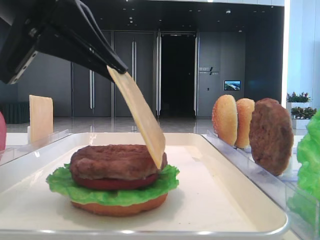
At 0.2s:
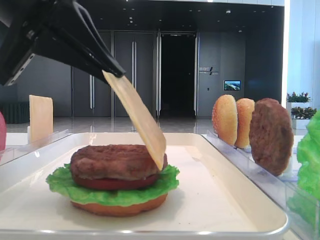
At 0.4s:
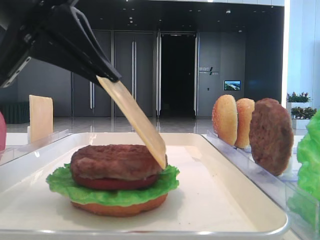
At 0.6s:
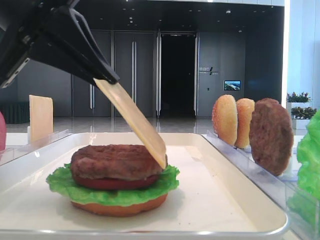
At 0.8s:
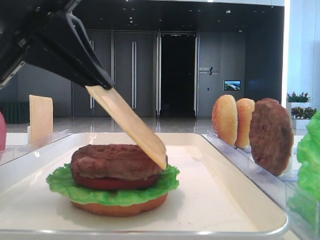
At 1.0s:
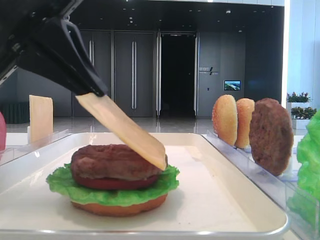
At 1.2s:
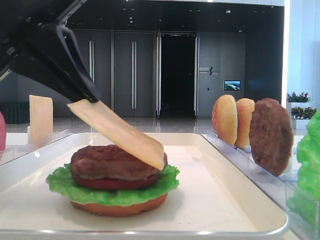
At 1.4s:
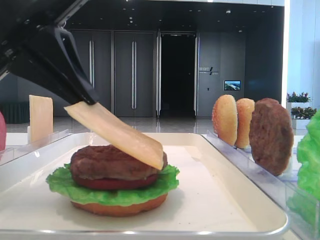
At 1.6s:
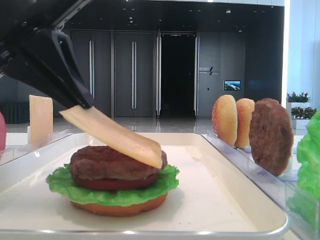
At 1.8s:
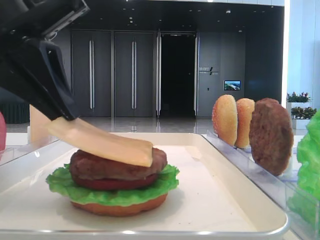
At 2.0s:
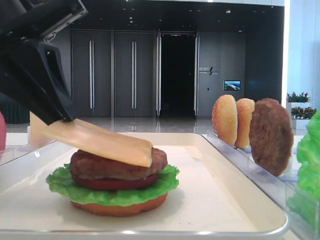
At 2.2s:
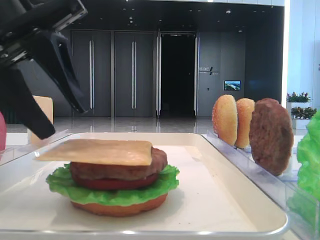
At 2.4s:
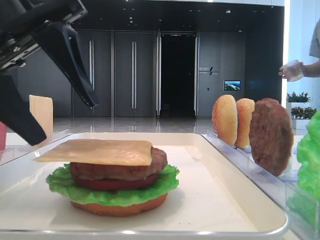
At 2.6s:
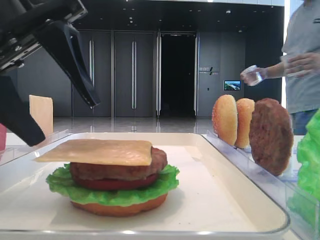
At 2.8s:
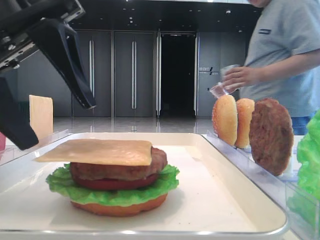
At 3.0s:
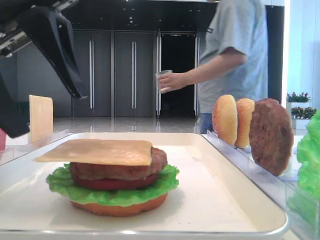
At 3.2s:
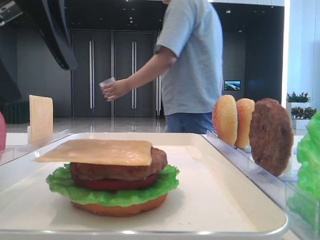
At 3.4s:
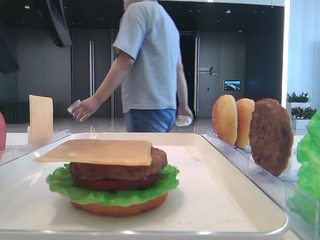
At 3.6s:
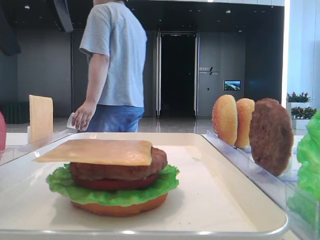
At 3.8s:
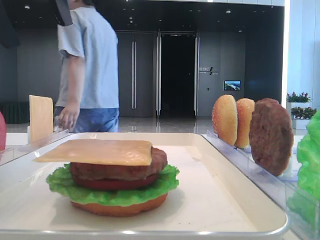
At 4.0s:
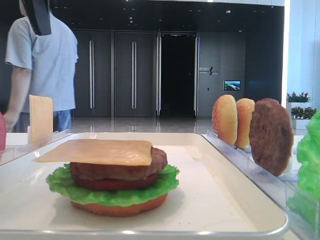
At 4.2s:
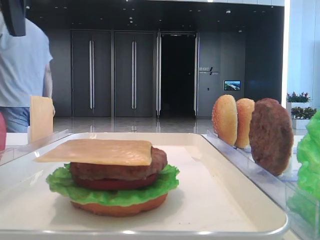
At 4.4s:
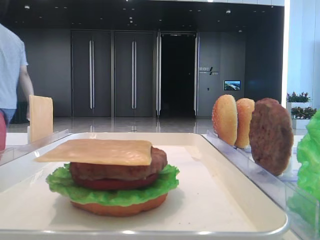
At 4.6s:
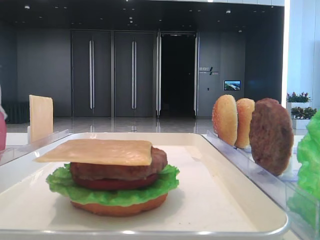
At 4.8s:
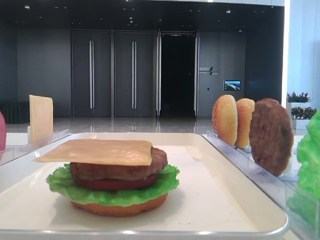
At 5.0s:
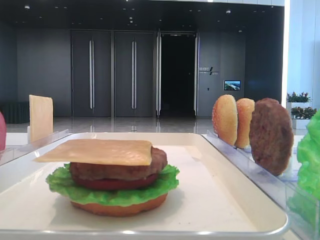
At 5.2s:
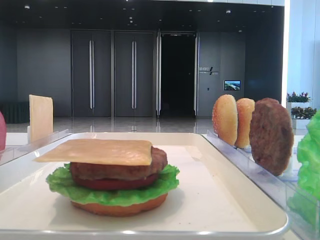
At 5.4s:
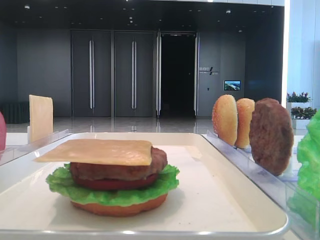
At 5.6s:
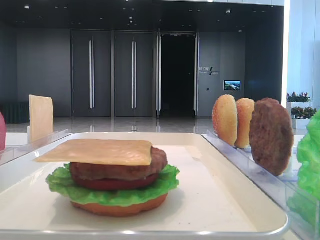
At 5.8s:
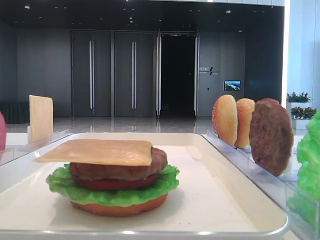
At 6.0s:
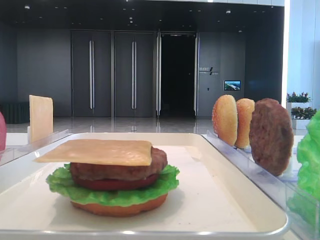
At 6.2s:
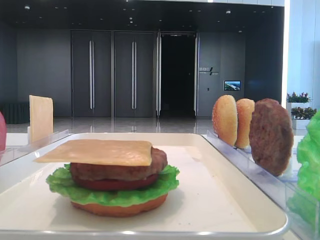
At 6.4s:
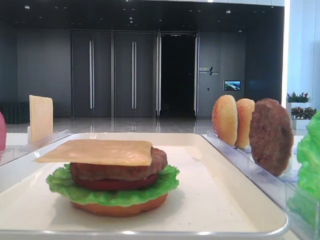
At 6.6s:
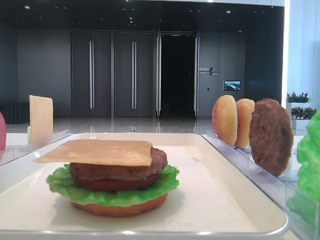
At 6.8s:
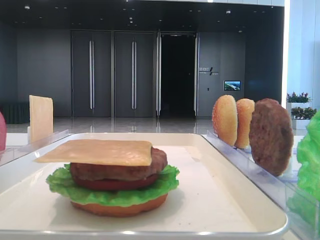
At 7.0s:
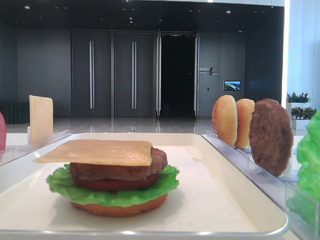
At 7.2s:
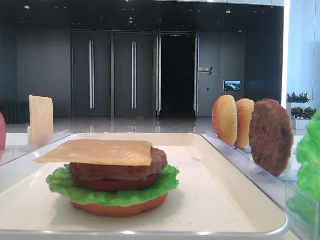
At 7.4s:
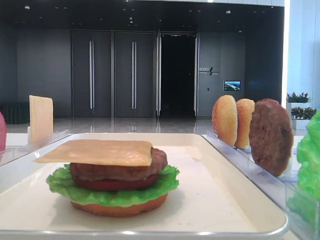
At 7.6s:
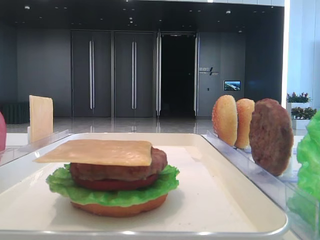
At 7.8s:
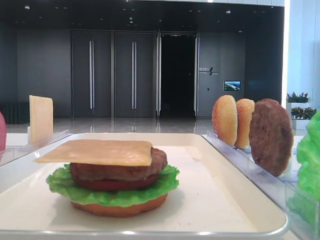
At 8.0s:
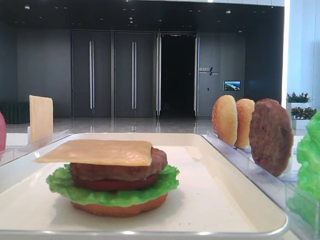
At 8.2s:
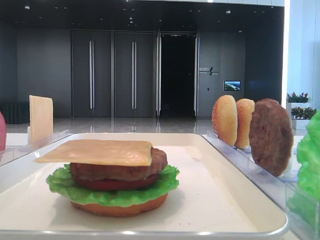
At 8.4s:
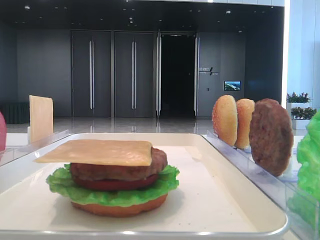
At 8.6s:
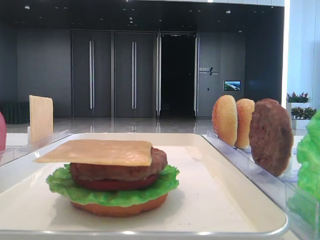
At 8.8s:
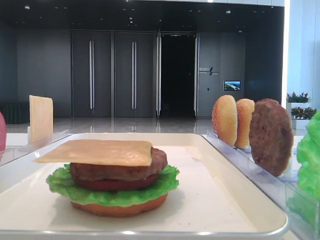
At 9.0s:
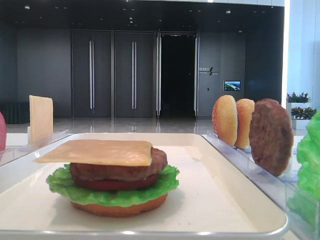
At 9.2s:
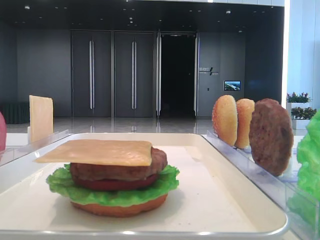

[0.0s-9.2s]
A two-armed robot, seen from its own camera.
Step, 0.0s to 2.0s: Place the cheese slice on the patty with the left hand.
0.0s to 1.6s: The grippers move only a little.
1.6s to 3.0s: The left gripper opens up.
3.0s to 4.6s: The left gripper goes roughly 20 cm to the left and upward.

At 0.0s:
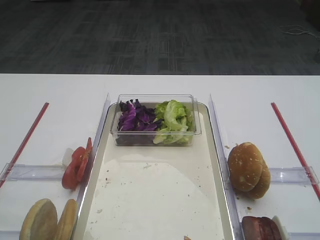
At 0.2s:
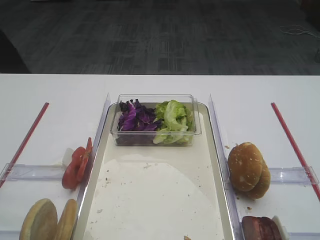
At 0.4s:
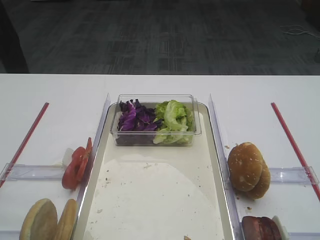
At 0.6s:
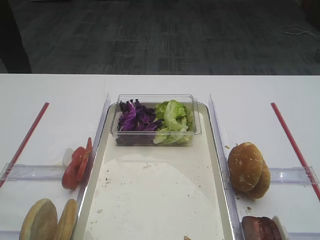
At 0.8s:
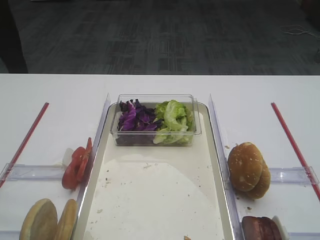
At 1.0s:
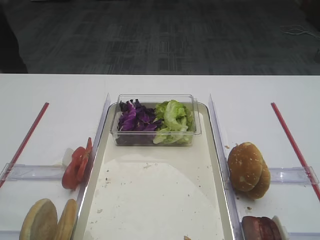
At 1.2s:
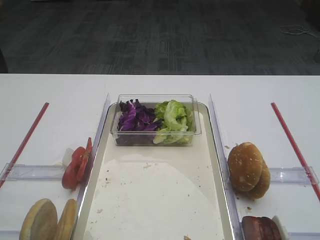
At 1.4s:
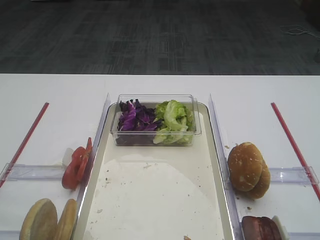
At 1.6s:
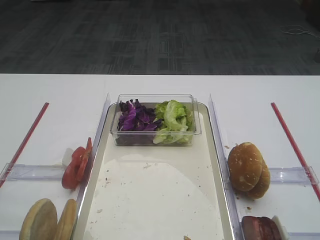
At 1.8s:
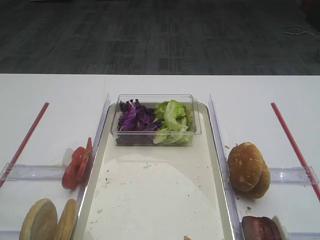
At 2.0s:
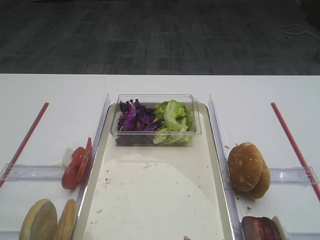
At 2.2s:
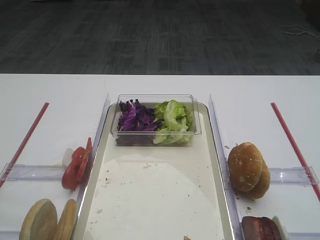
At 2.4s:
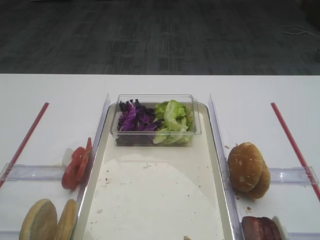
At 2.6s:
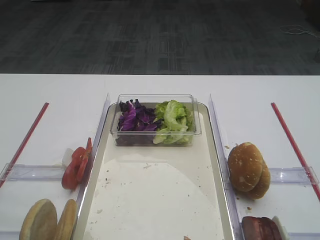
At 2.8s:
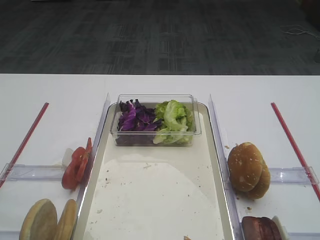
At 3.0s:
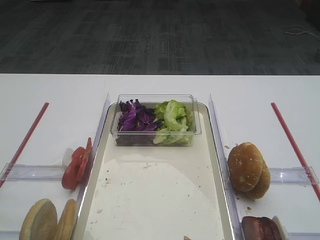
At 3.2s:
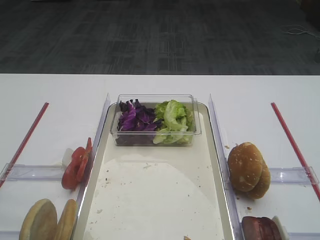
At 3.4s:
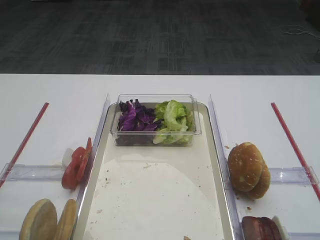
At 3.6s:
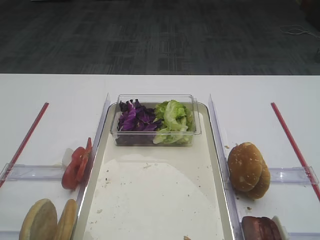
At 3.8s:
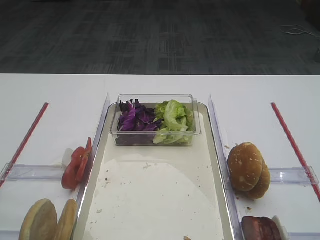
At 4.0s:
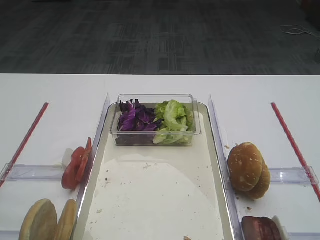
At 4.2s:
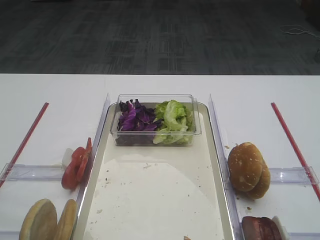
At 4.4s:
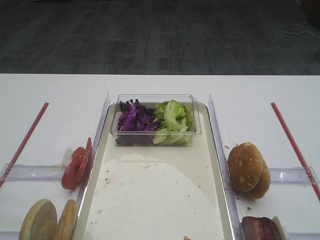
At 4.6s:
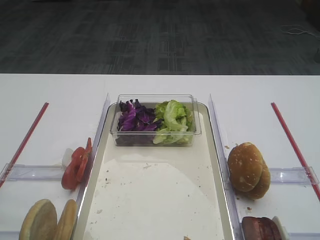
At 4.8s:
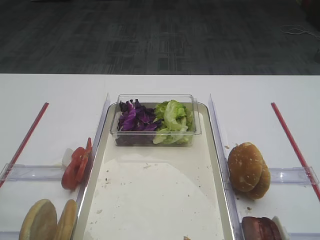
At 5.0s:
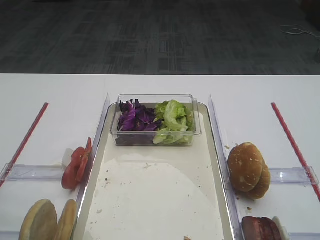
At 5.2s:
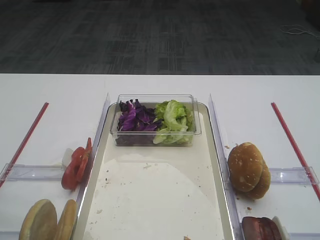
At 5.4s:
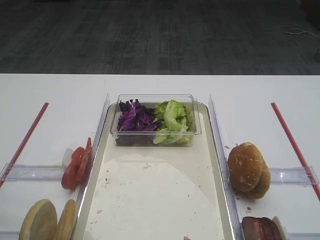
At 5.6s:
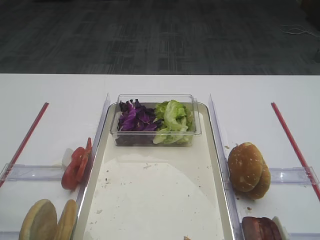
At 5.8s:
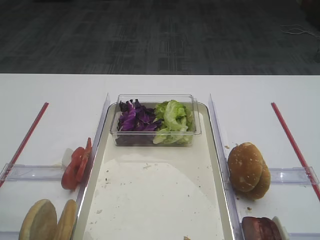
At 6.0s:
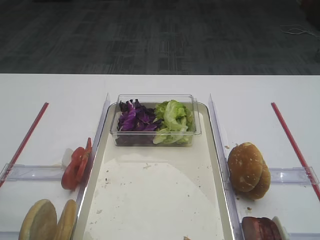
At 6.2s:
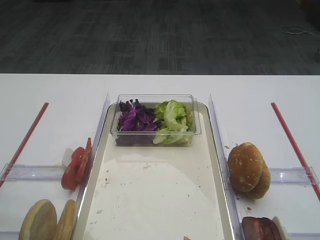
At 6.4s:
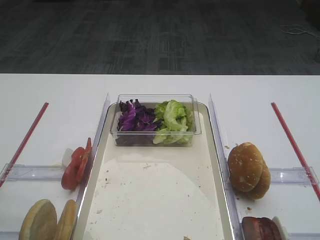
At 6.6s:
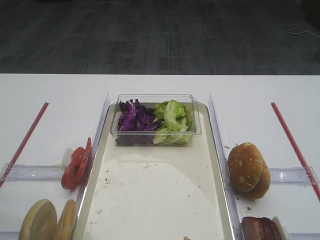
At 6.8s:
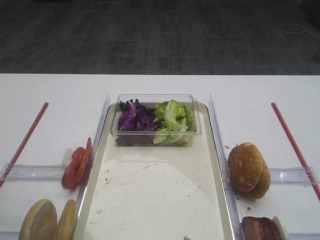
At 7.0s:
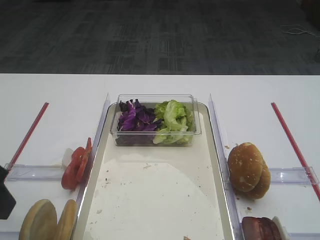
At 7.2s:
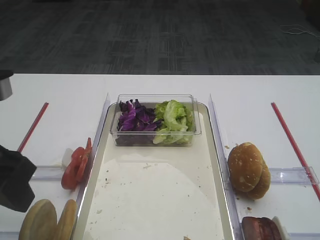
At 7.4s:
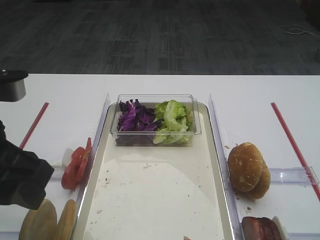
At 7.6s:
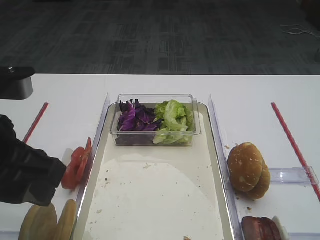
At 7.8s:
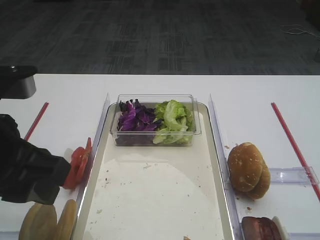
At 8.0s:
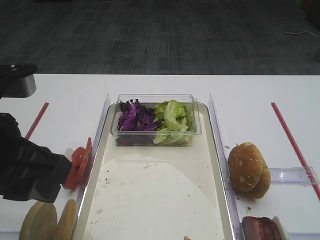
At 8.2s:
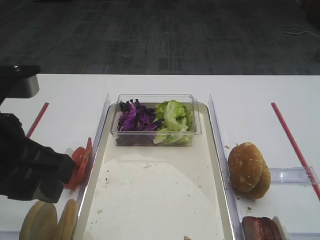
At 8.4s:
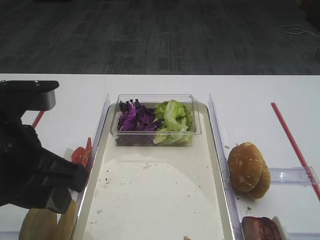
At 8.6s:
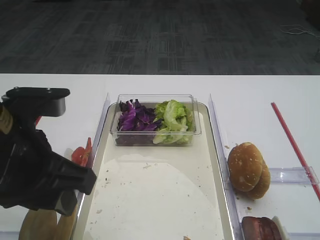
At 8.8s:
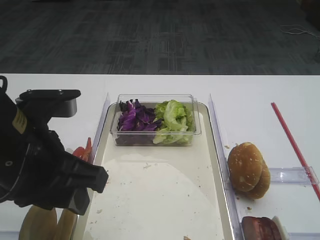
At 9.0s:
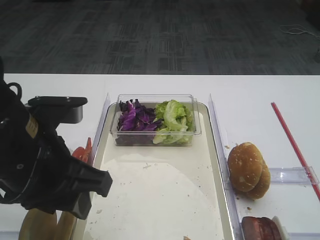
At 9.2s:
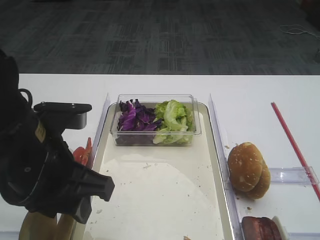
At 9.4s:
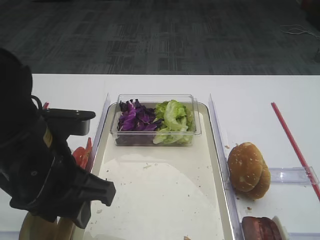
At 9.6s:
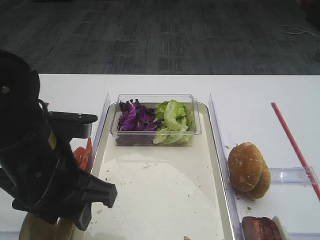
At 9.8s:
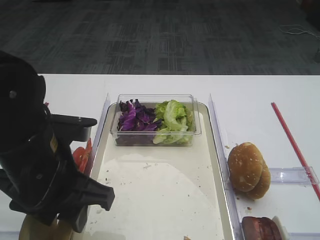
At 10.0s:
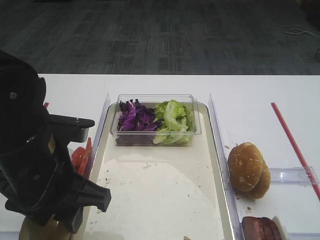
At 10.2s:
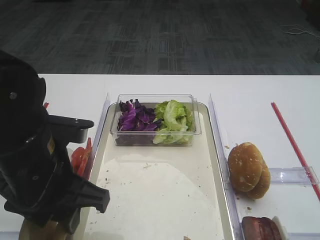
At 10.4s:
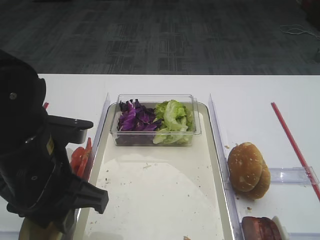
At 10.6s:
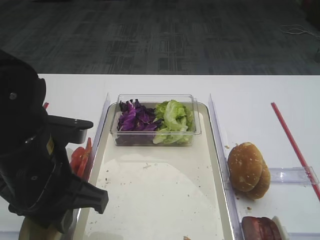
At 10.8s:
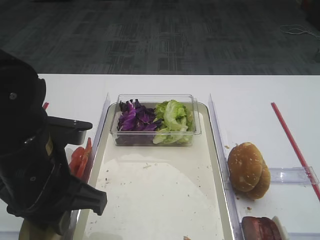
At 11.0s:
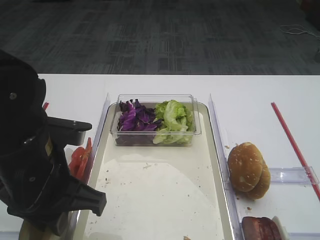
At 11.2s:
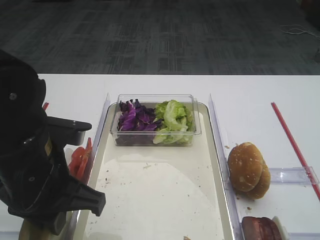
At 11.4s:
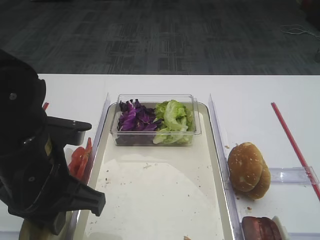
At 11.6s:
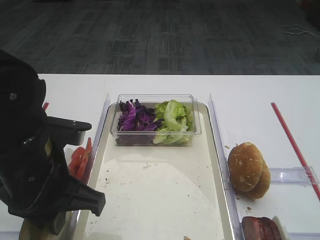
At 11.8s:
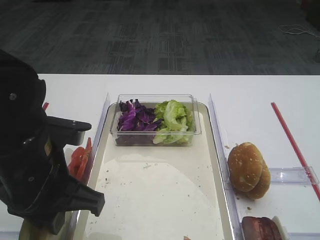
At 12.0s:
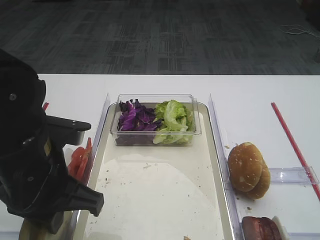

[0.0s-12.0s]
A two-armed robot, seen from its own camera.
1.6s to 3.0s: Neither gripper changes place.
6.0s to 7.6s: The left gripper is displaced to the right by roughly 10 cm.
7.6s to 9.0s: The left gripper changes place by approximately 5 cm.
9.0s to 10.4s: The grippers move only a little.
10.4s to 12.0s: The left gripper closes up.

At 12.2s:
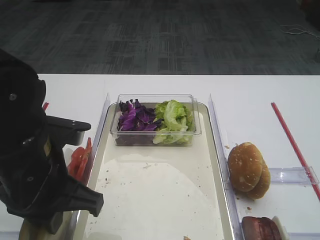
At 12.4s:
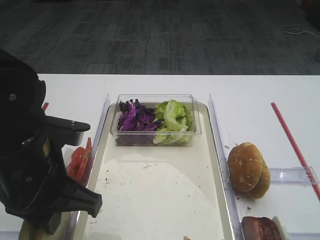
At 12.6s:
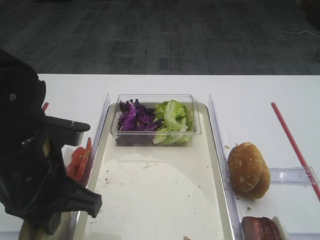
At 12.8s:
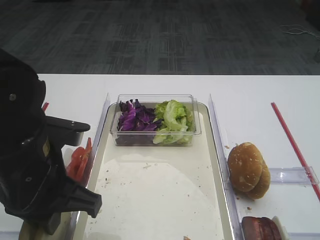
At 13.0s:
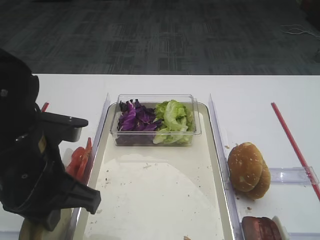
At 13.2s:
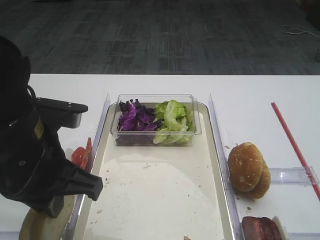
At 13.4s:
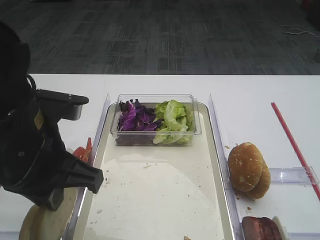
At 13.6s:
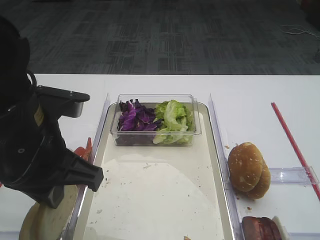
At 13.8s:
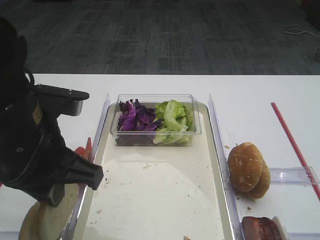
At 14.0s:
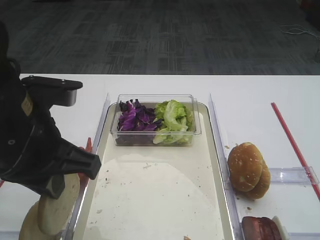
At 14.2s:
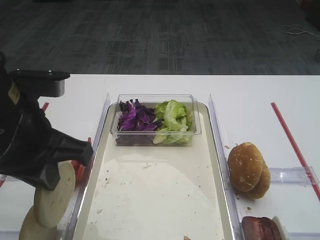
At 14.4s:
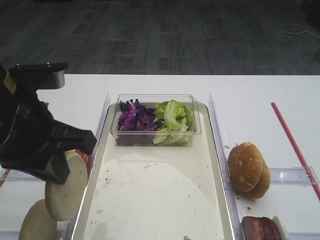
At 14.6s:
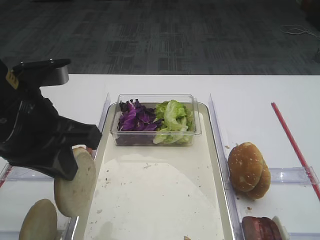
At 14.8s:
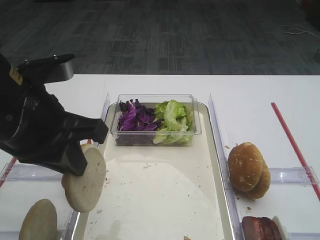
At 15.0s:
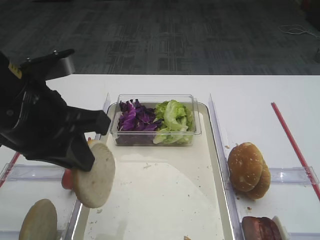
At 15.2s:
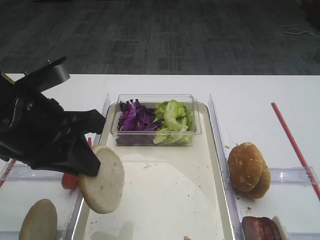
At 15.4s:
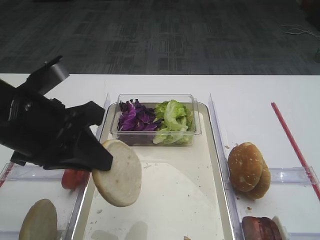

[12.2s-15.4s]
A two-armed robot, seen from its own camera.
Step, 12.2s to 14.4s: Pick up the bread slice with the left gripper.
12.2s to 13.8s: The grippers stay close to where they were, moving slightly.
